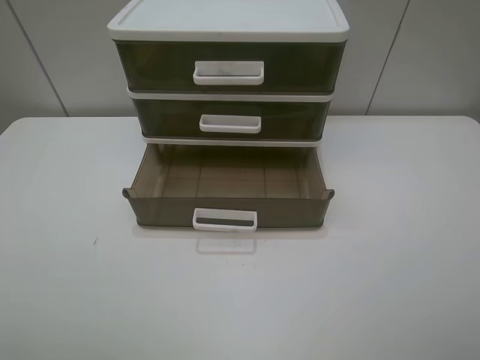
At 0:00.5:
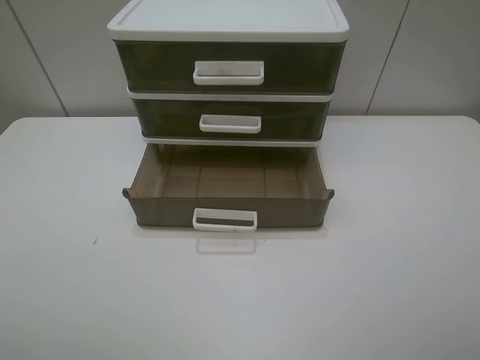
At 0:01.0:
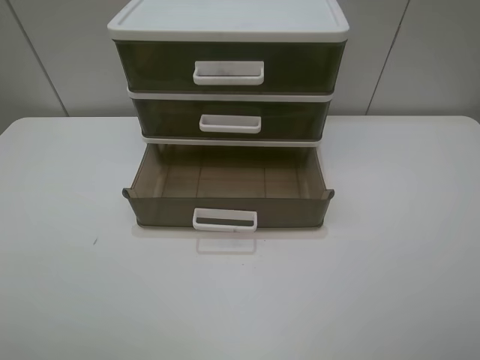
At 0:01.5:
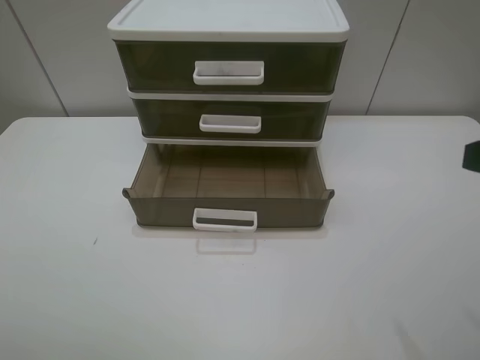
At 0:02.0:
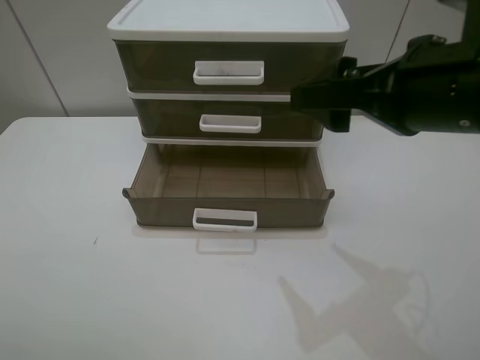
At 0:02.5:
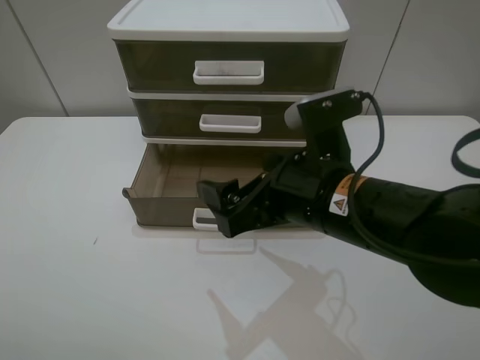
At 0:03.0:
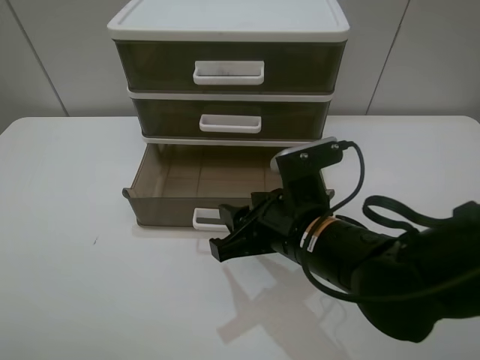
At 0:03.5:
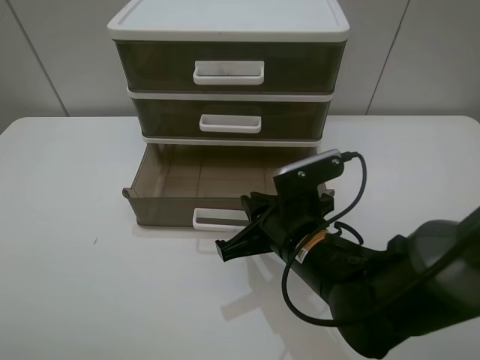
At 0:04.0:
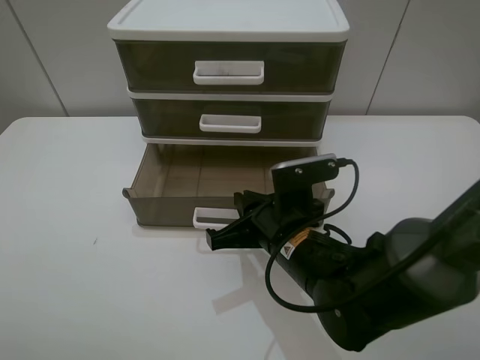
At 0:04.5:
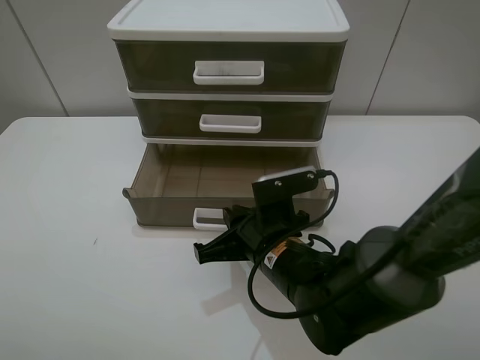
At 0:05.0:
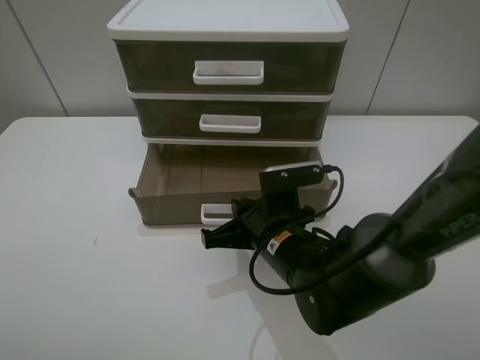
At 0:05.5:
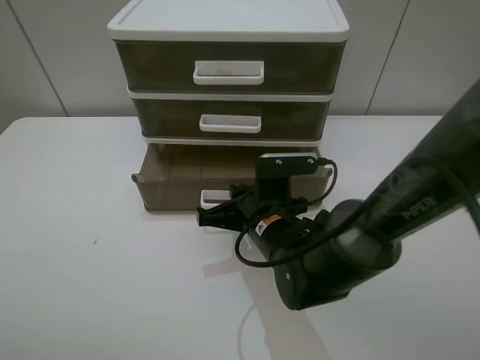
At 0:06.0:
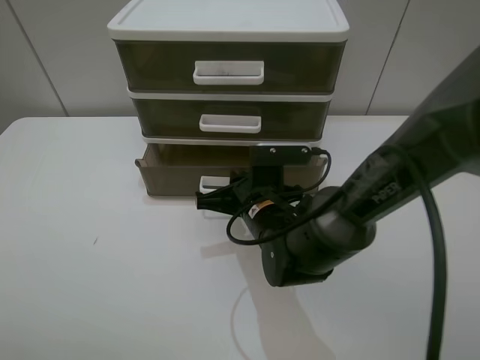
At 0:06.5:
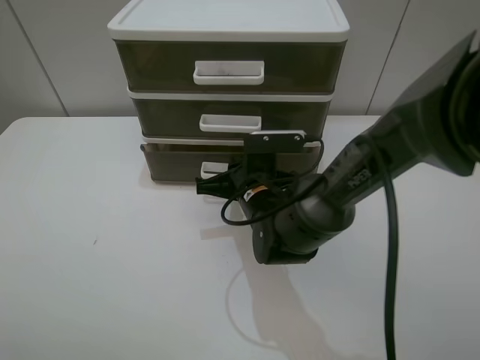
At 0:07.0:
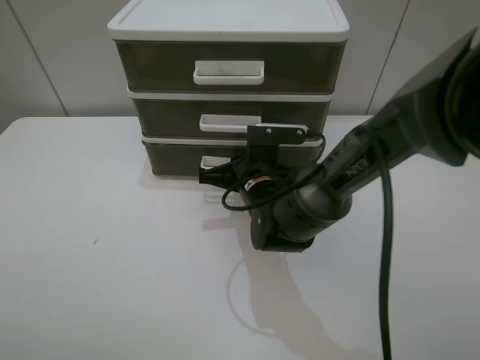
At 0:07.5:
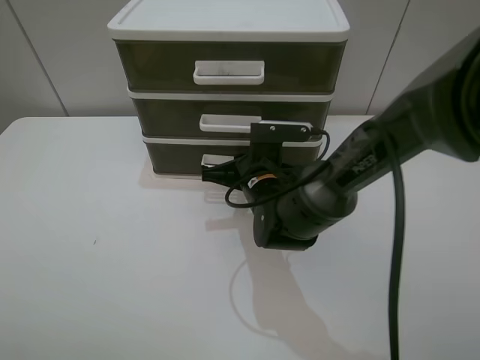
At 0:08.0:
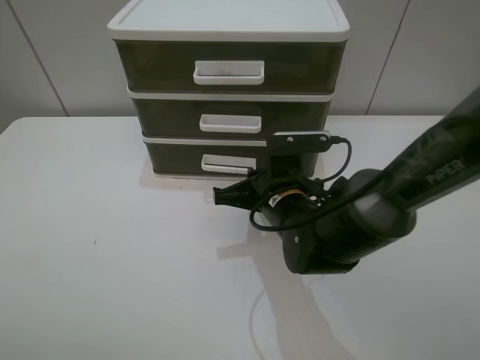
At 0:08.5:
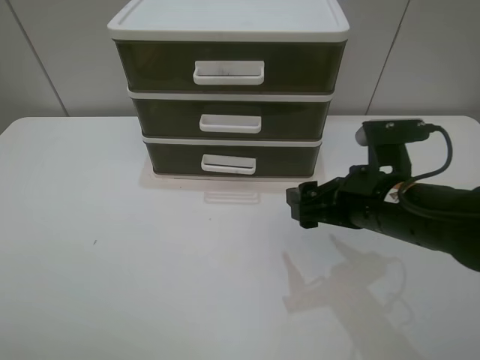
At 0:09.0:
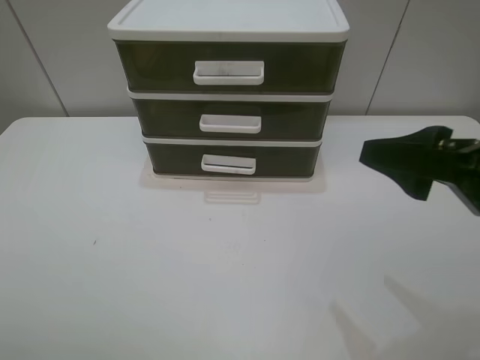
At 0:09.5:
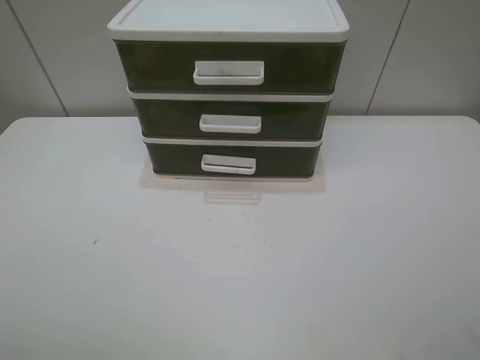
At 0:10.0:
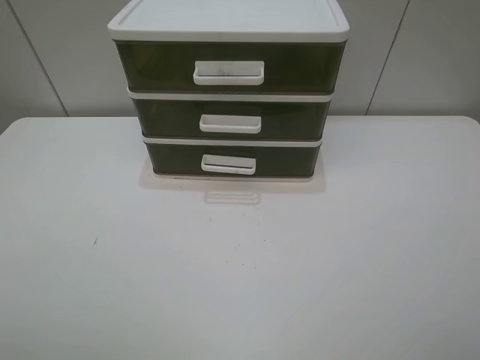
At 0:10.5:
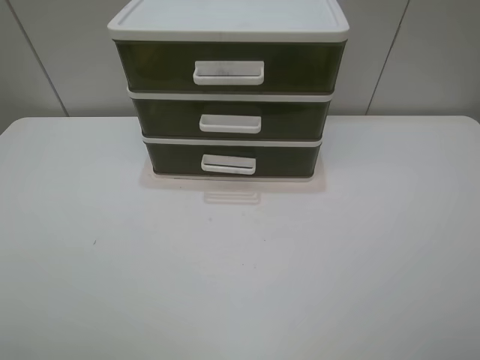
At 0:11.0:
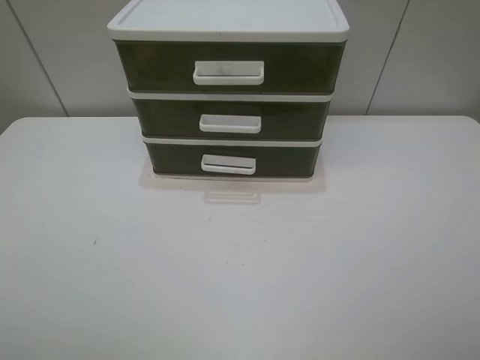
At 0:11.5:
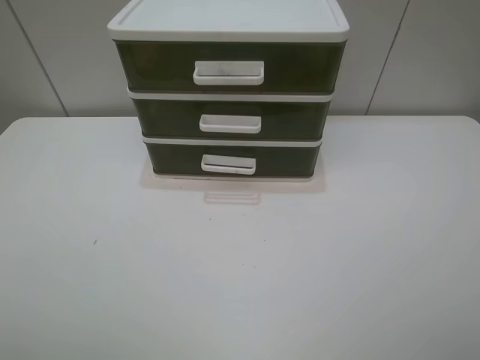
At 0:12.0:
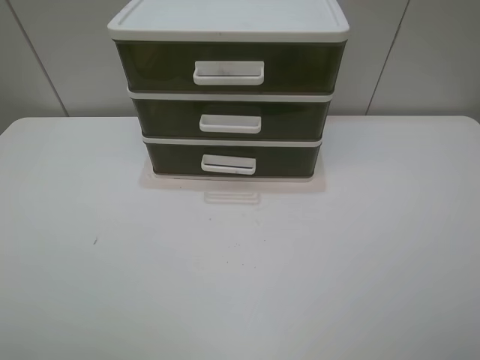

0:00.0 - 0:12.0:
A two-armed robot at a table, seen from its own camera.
Task of the whole recording: close the bottom drawer.
Step, 0:00.0 - 0:04.5: Use the right gripper to contact the bottom layer of the storage cabinet.
Step, 0:05.0 - 0:07.0: Push the bottom drawer closed.
0:00.0 - 0:02.0: The right gripper is displaced forward and to the left by roughly 25 cm.
0:02.0 - 0:04.0: The right gripper is displaced downward and to the left by some 20 cm, and closes.
0:04.0 - 0:06.0: The right gripper goes roughly 5 cm forward.
0:06.0 - 0:08.0: There are only small adjustments of the grippers.
0:08.0 - 0:10.0: The right gripper travels upward, to the right and backward by roughly 40 cm, and opens up.
